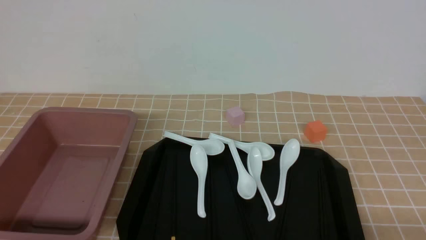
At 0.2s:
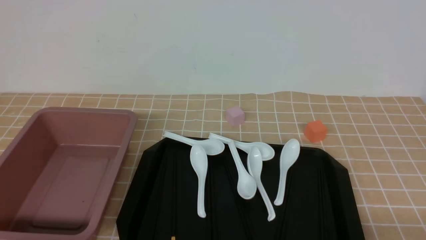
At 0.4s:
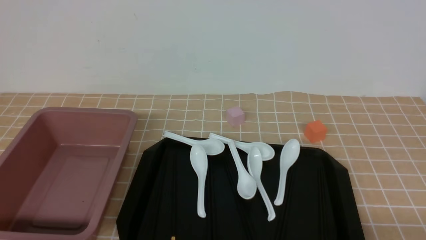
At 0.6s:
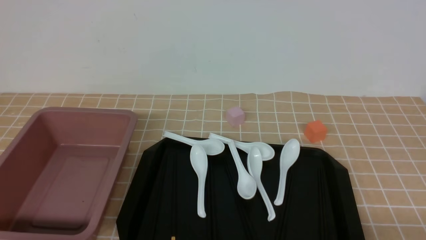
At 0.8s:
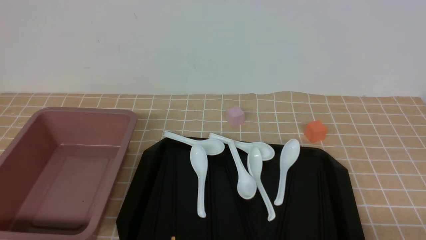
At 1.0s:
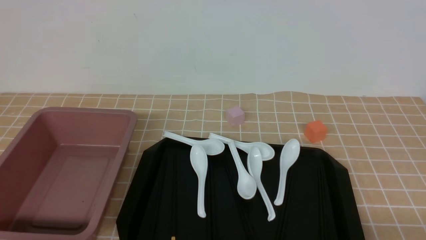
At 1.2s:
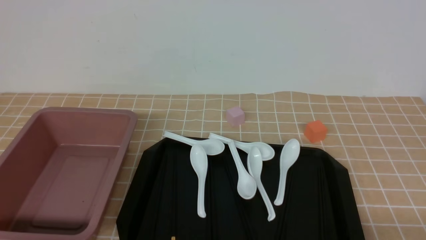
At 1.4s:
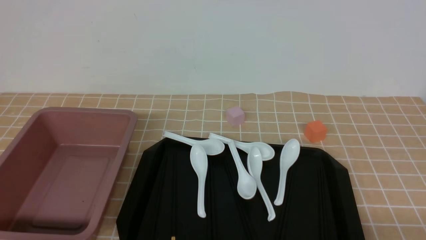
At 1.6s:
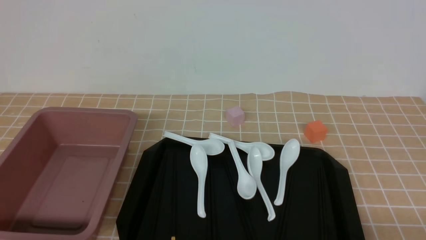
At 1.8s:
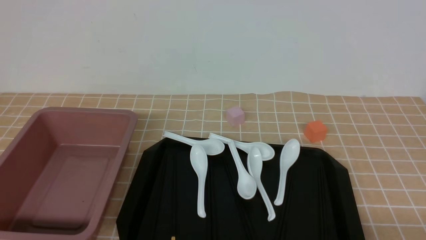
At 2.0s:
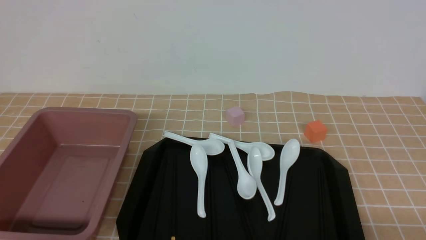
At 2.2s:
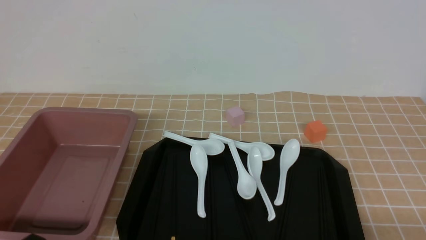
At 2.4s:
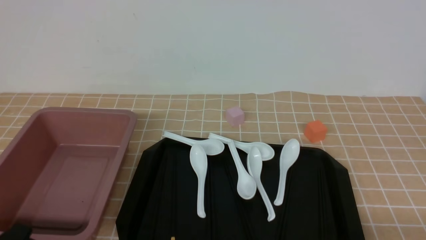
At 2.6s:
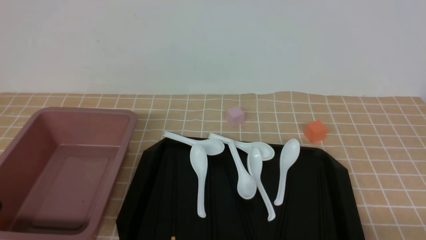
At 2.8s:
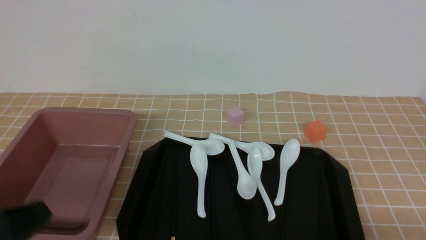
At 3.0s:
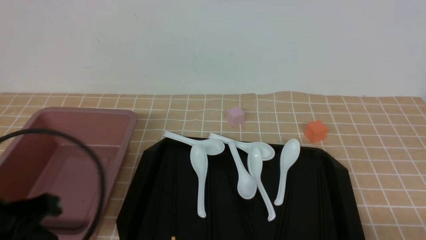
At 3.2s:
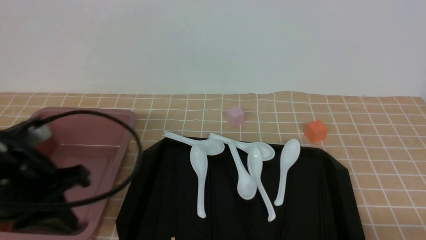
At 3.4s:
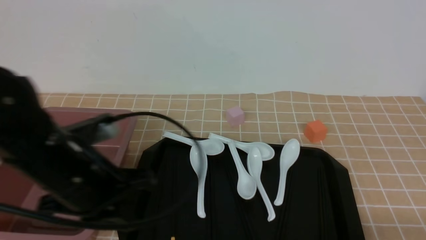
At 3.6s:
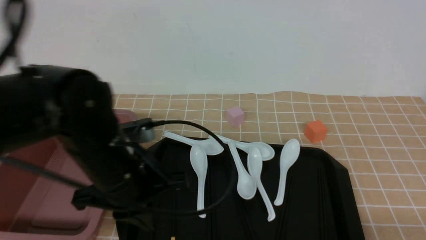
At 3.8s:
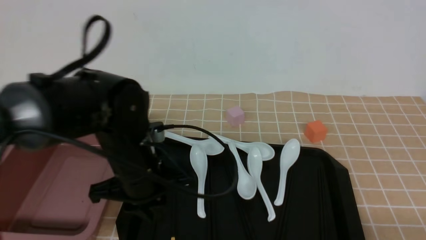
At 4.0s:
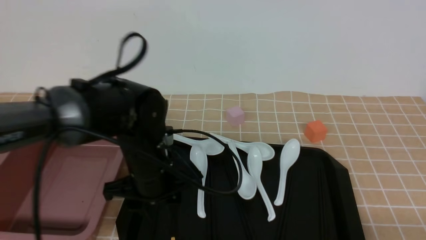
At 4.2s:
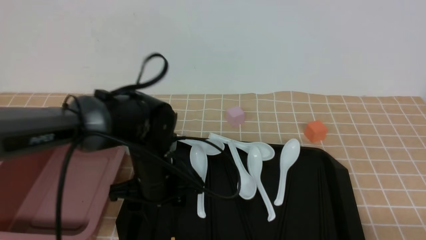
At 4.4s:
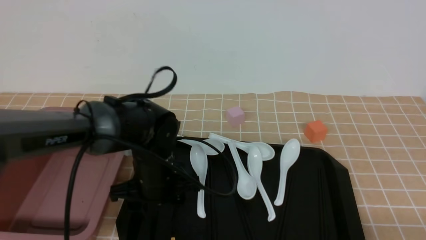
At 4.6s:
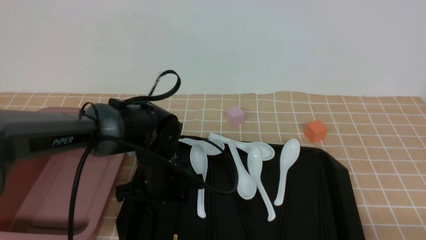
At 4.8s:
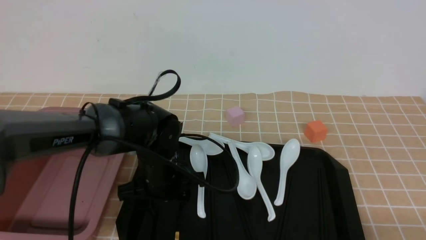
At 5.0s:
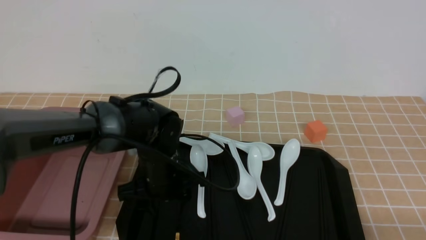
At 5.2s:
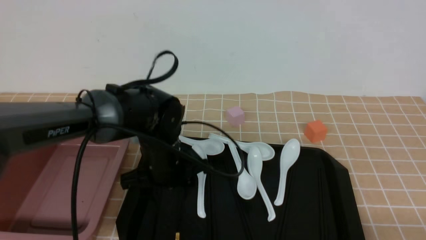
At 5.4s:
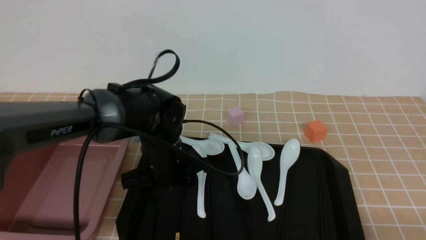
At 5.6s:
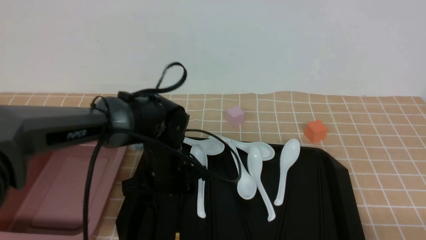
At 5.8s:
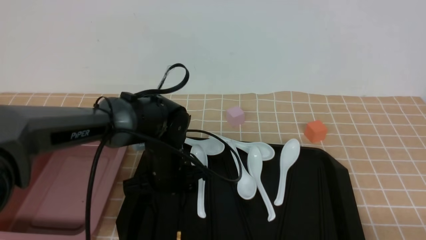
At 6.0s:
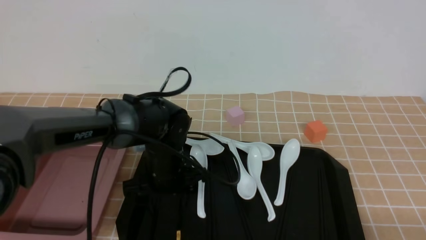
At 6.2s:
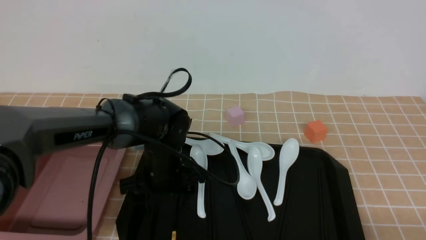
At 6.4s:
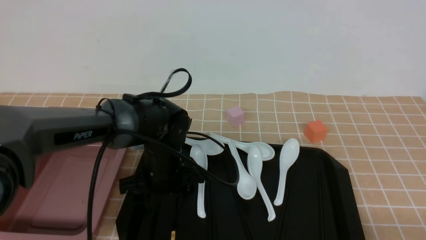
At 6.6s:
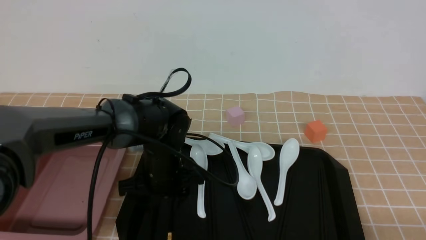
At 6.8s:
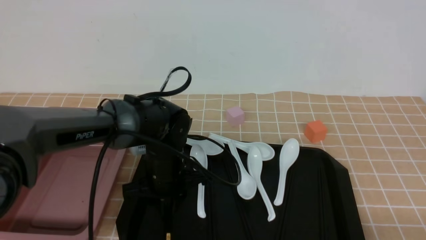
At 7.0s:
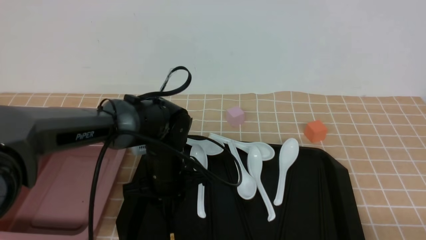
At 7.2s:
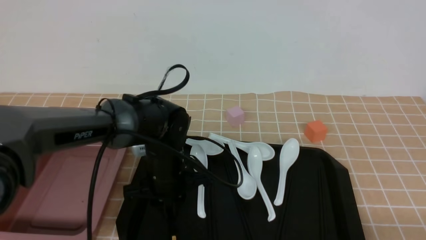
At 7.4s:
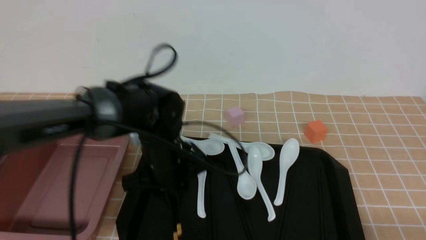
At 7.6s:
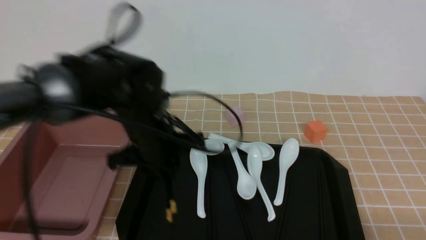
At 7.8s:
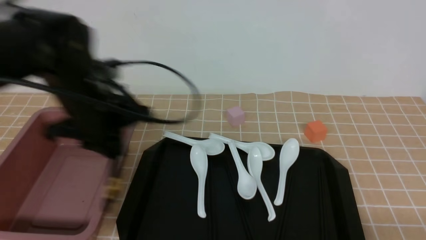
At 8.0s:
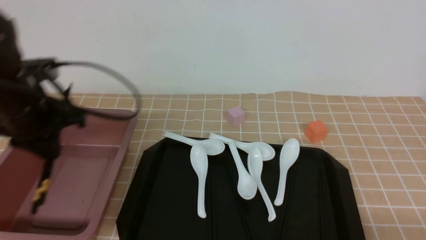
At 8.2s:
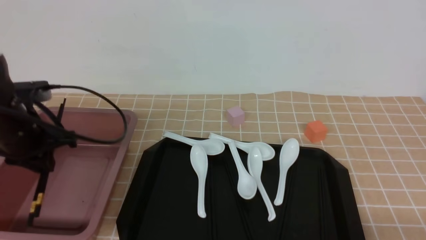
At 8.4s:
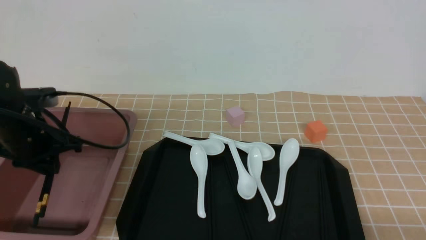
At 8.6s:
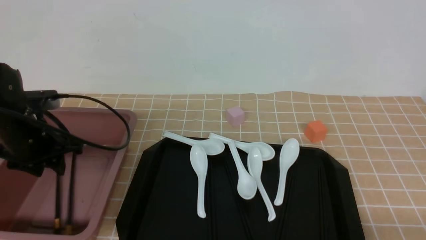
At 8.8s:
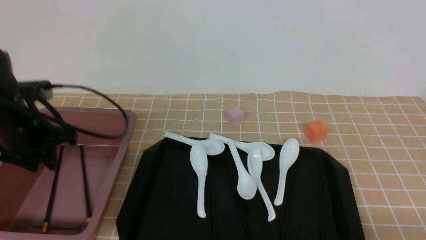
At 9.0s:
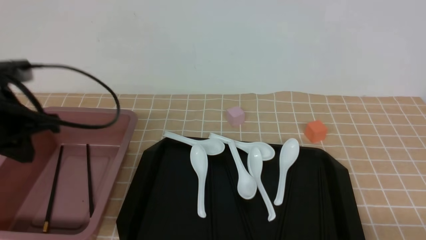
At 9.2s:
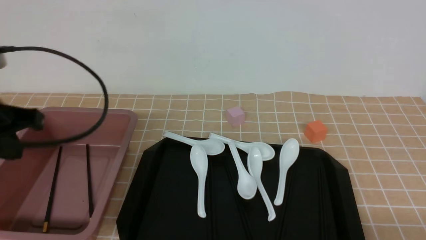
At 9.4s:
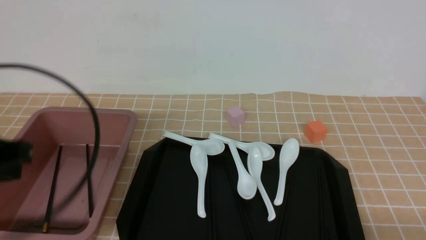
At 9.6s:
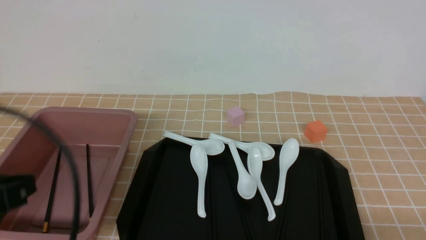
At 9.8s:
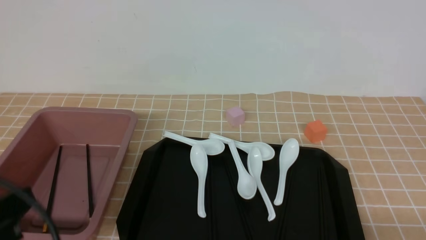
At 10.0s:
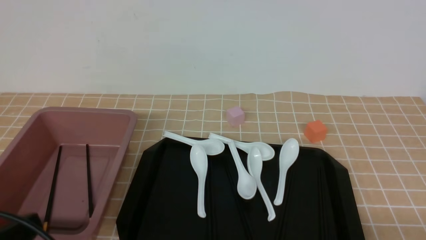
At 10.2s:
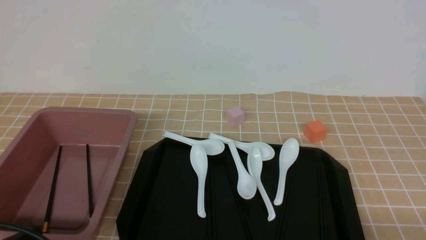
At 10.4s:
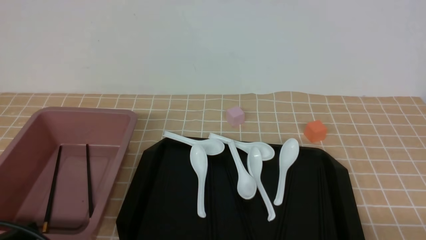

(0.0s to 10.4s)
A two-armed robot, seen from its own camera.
Step, 0.0s - 7.4s: use the left arm to grab a pair of chopsticks.
Step, 7.8s - 8.8s: use the left arm to put the chopsticks into the lunch box.
0.0s - 1.4s: The two grippers keep their place.
1.4s - 3.0s: The left gripper goes some 15 cm upward and forward, and closes up.
3.0s - 4.4s: The left gripper moves forward, to the right and downward, roughly 25 cm, and opens.
4.4s - 6.0s: The grippers stay close to where they were, moving slightly.
6.0s - 7.4s: The left gripper shifts by some 5 cm, and closes its fingers.
7.4s - 9.0s: The left gripper heads to the left and upward, covering some 20 cm.
9.0s - 10.4s: The left gripper shifts roughly 20 cm backward and downward.

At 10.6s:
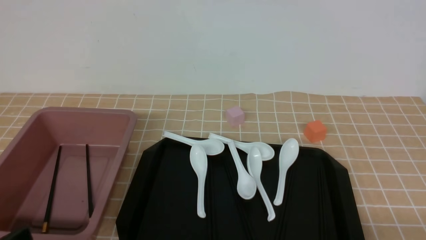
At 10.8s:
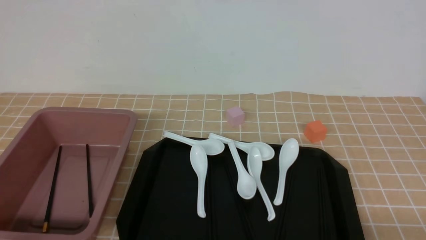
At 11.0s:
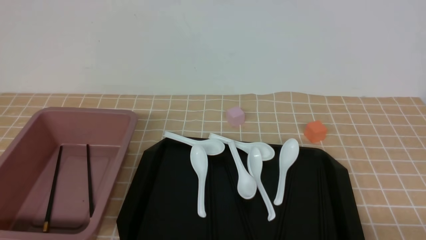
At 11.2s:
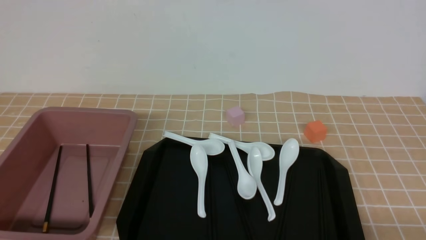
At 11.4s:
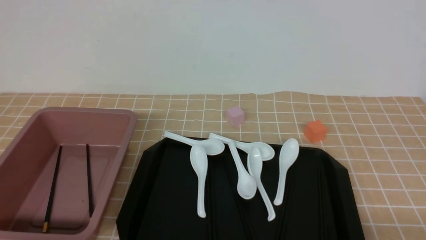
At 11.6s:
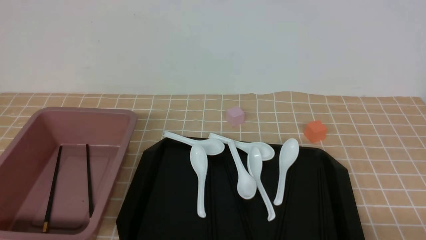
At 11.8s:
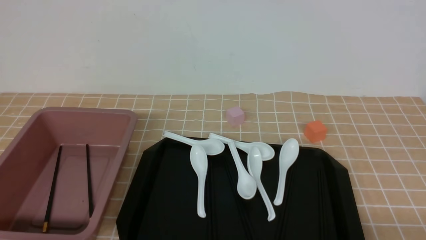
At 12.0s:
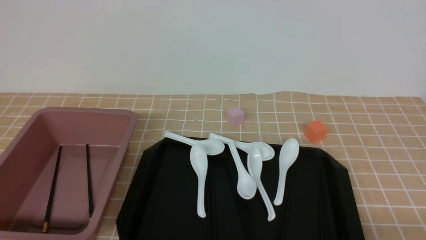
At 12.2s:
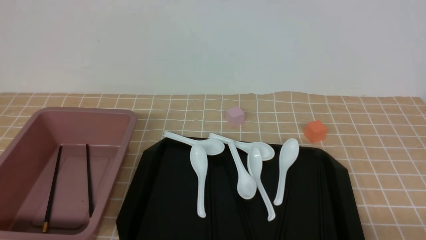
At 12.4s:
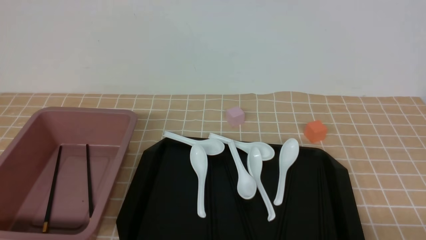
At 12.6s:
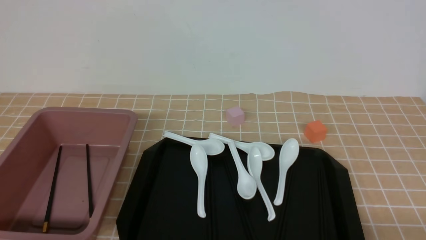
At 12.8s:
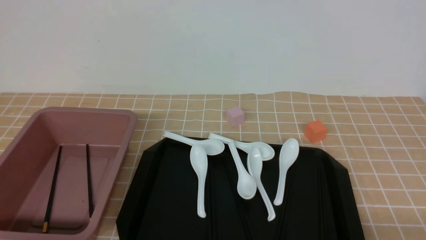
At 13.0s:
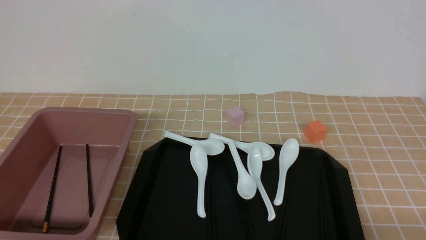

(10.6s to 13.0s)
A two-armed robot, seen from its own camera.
11.8s - 13.0s: The two grippers keep their place.

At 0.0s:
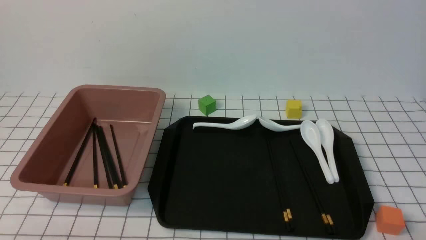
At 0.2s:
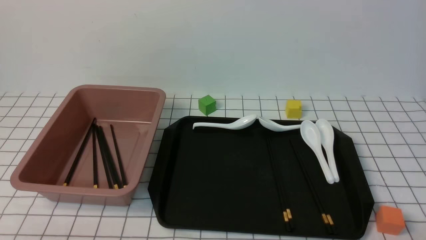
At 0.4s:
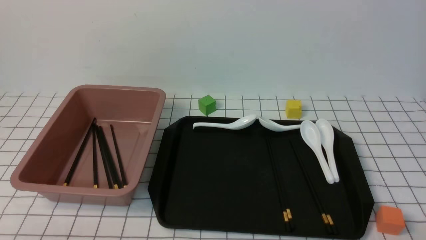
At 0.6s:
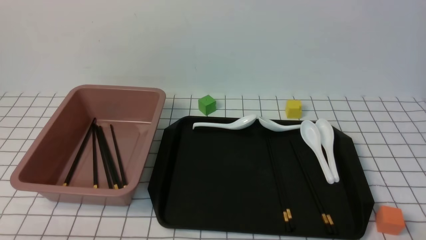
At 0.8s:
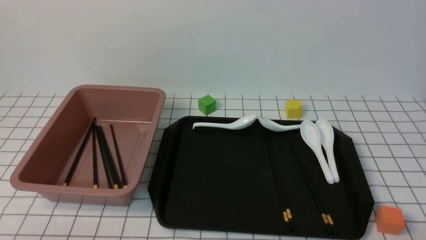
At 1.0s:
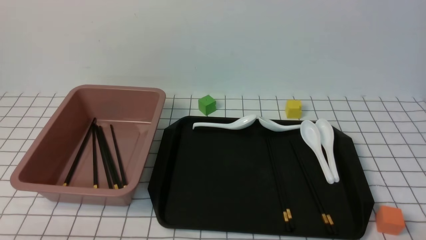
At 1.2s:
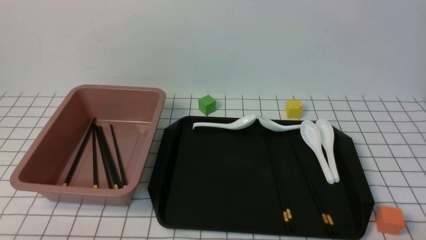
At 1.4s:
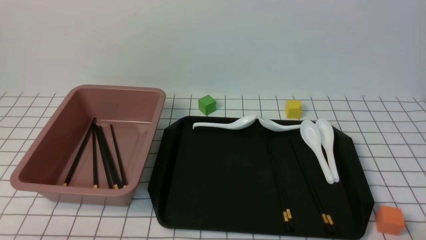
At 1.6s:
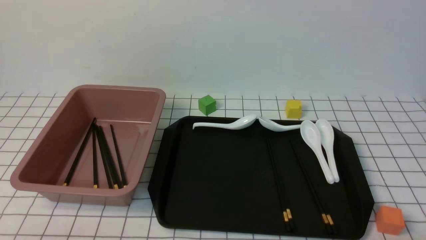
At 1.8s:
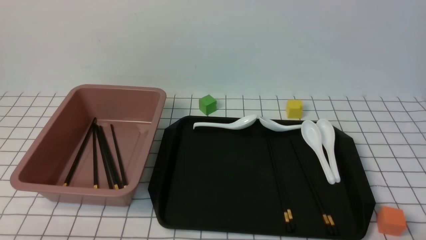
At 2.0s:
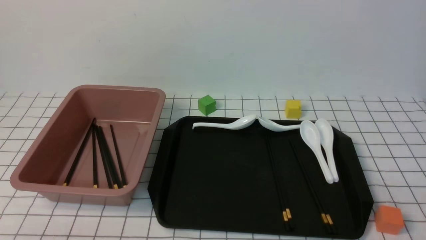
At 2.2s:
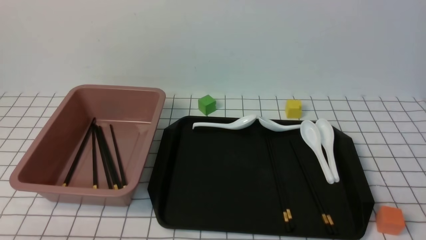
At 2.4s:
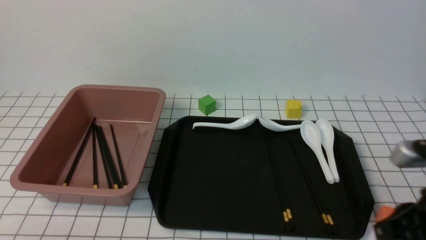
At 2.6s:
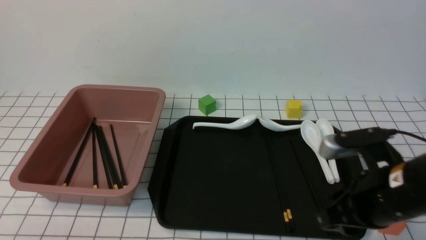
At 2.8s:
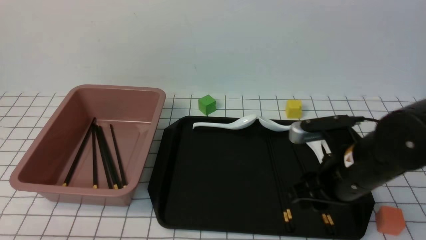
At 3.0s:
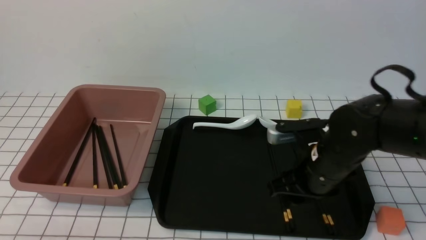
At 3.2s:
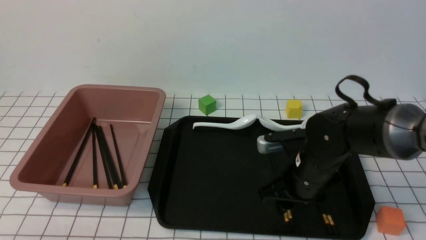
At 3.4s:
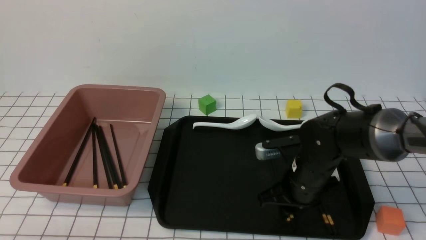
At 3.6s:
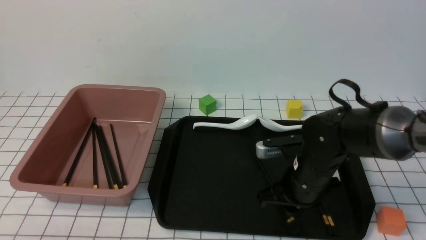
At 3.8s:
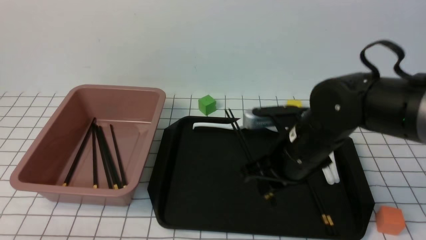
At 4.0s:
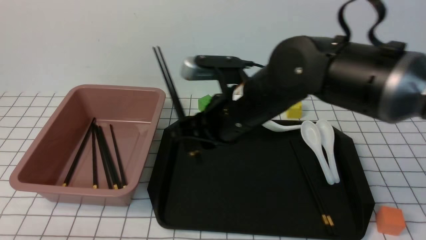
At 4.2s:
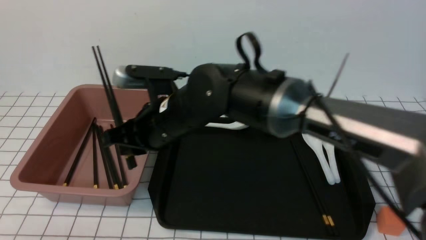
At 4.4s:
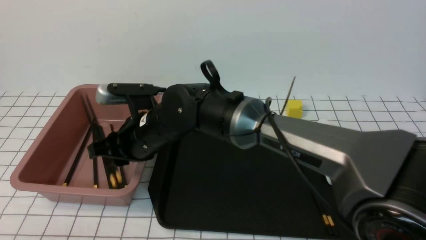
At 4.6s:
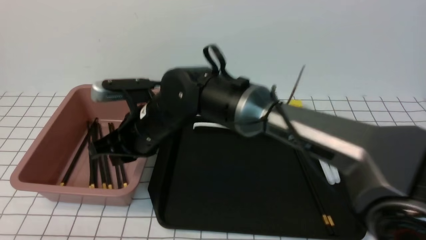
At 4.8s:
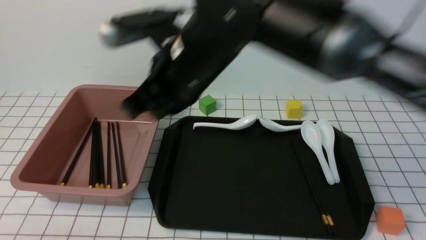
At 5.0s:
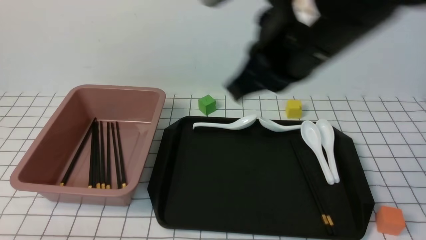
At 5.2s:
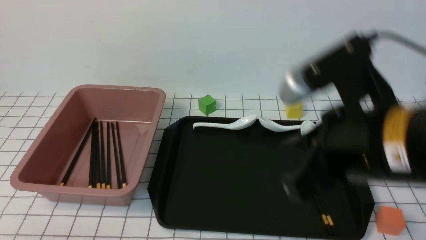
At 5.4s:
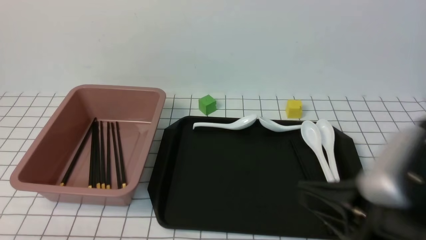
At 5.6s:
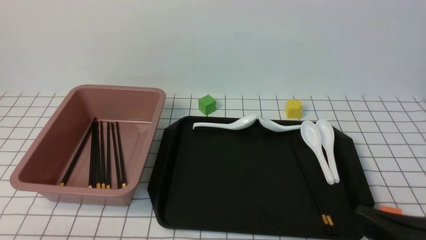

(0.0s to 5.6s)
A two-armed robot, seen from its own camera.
Step, 0.0s - 2.4s: use the right arm to grab a pair of chopsticks.
Step, 2.6s - 4.8s: use the right arm to put the chopsticks into the lunch box.
1.4s - 2.8s: The right gripper goes approximately 25 cm forward and to the left, and closes and opens again.
2.8s - 4.2s: The right gripper moves to the left, about 20 cm, and closes.
4.2s - 5.6s: The right gripper heads to the right and backward, covering some 40 cm, and closes up.
